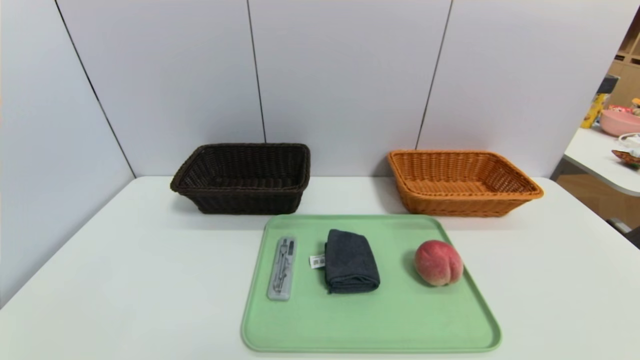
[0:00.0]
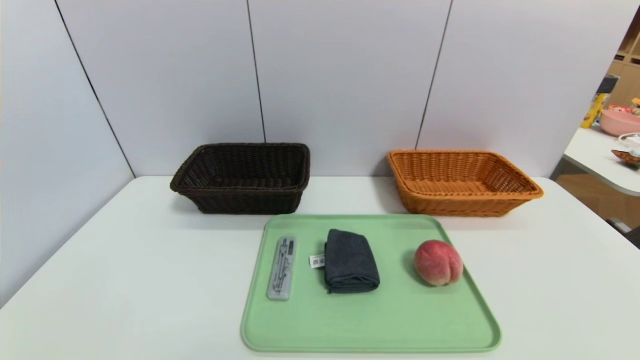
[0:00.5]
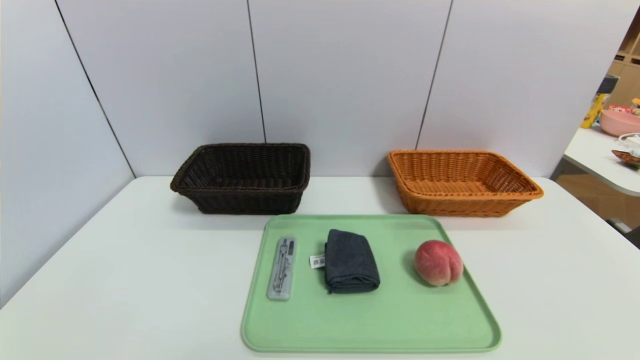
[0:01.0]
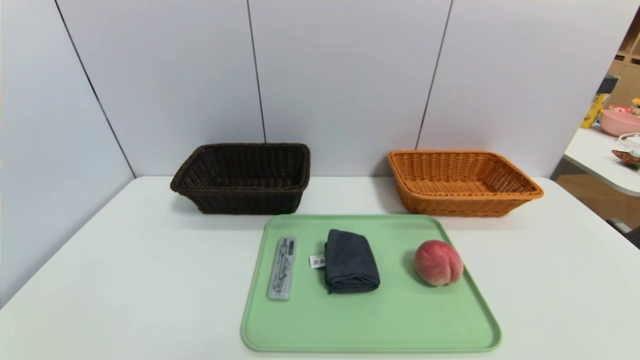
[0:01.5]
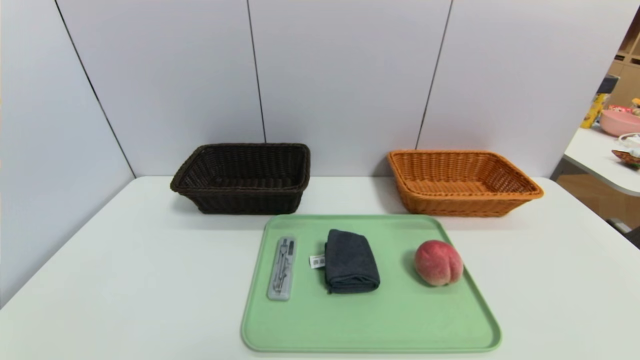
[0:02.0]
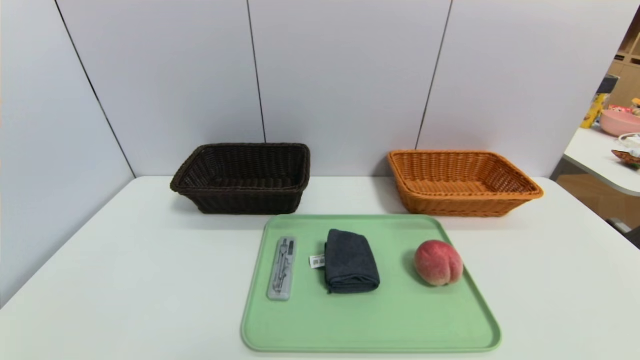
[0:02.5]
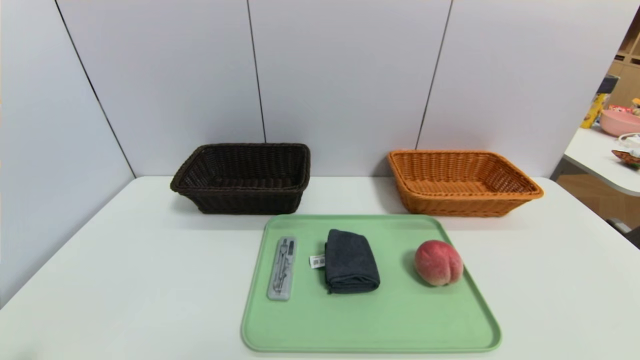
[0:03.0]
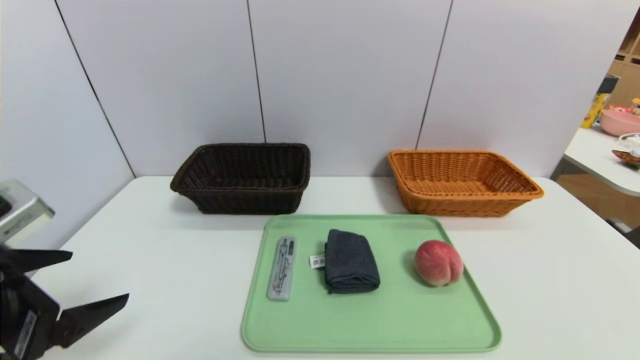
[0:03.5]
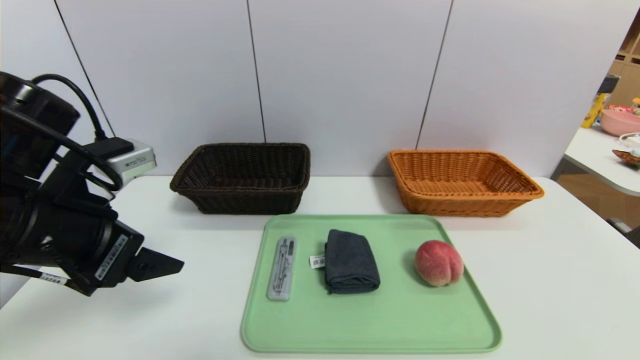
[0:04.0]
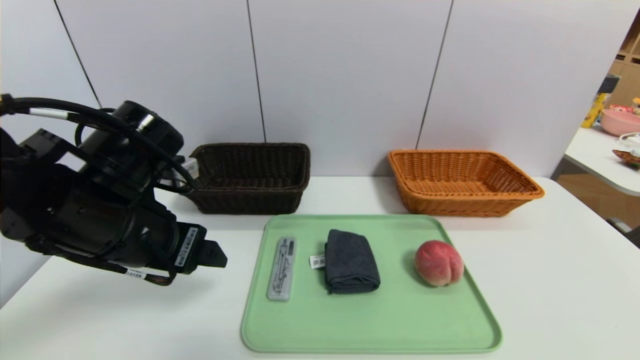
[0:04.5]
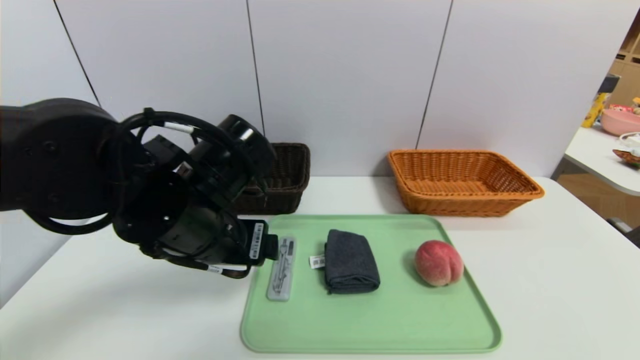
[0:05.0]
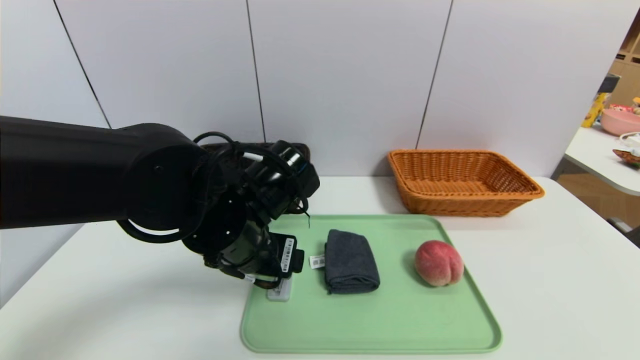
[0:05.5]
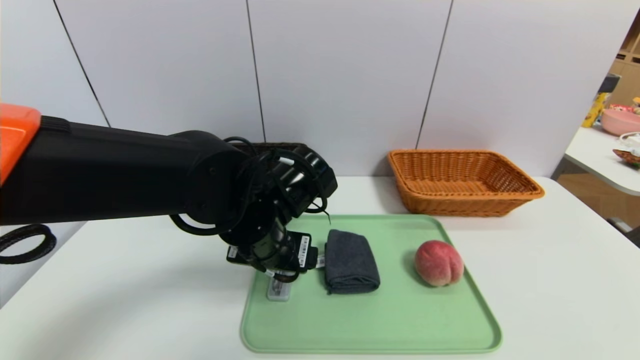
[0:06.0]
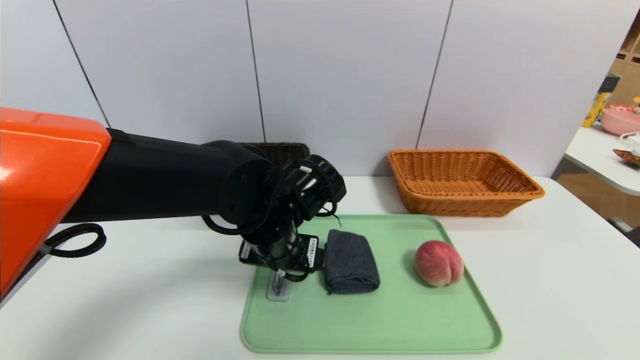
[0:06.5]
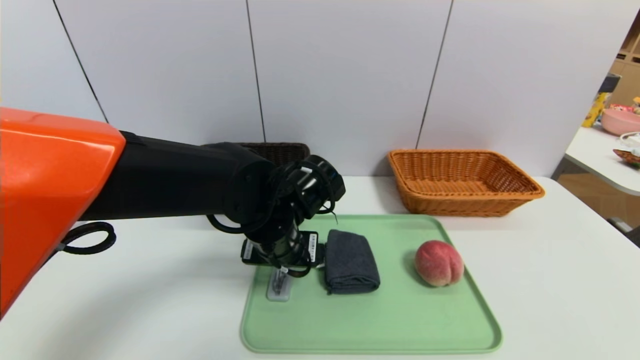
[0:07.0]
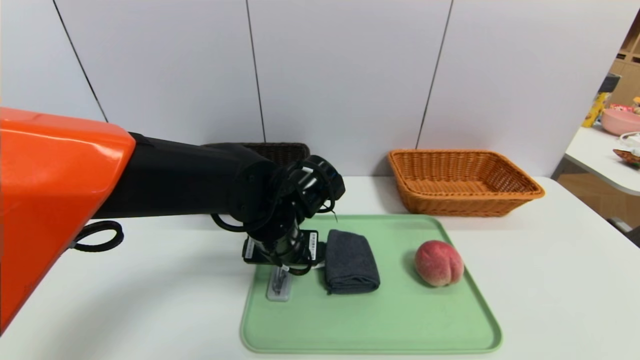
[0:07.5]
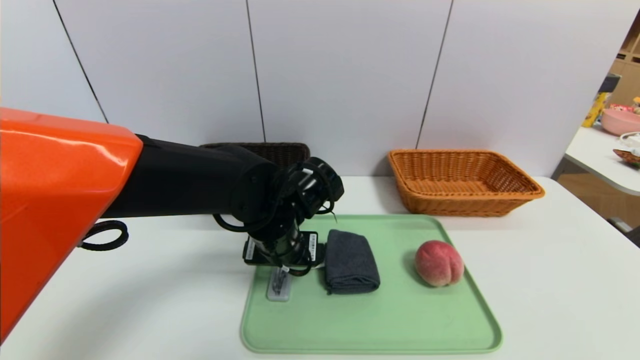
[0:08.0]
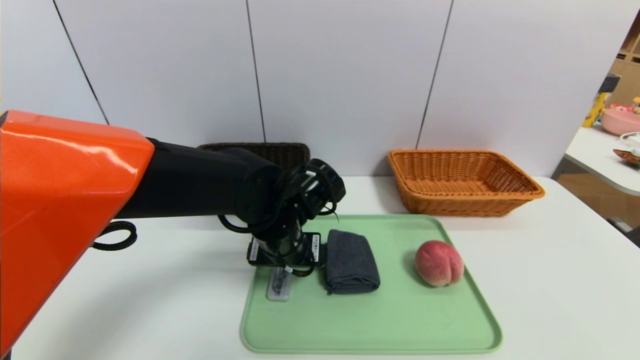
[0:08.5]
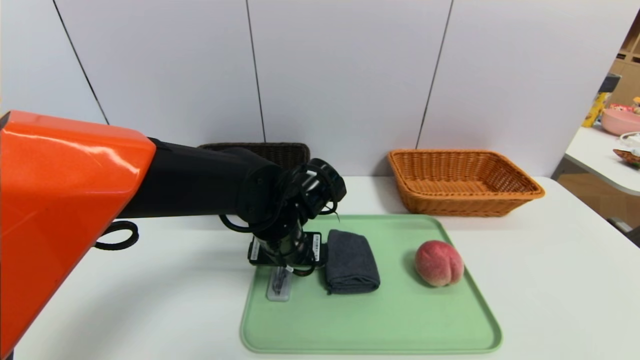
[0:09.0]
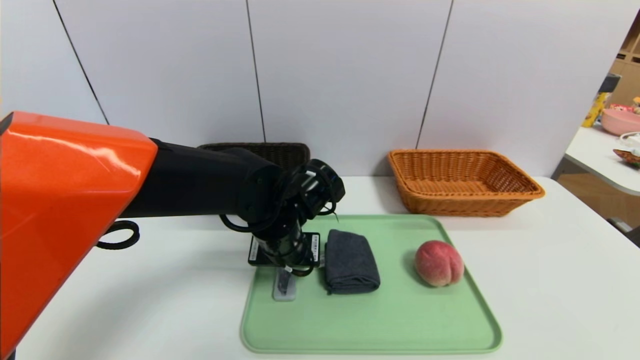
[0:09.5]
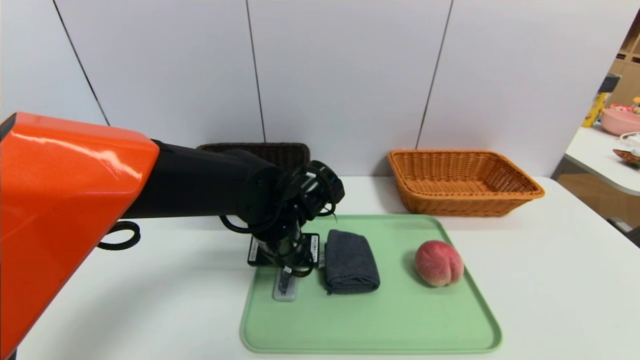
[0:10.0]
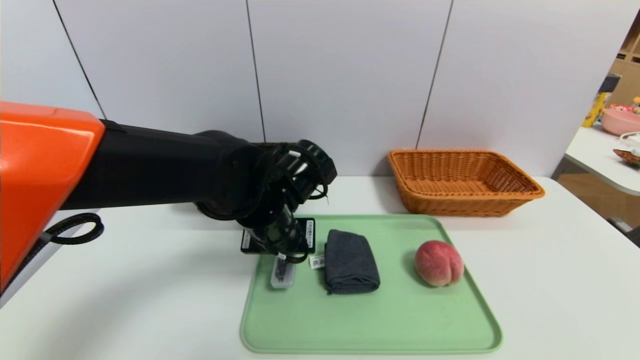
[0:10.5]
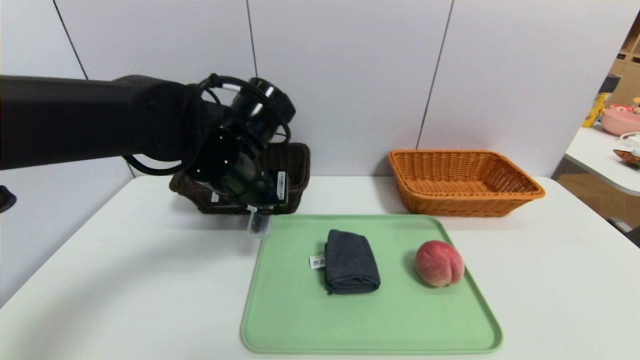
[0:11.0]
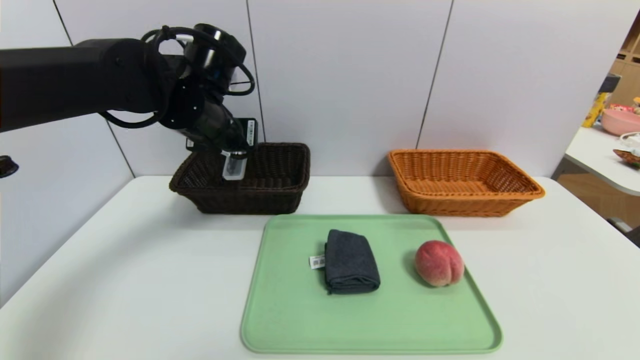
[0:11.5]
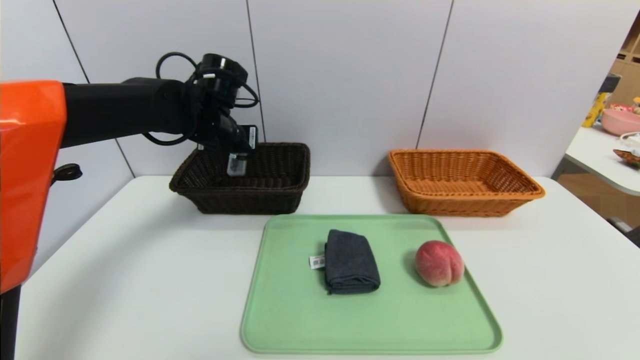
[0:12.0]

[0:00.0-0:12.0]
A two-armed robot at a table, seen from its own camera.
Task of the whole recording: place the food in the right basket with the right gripper, and place the non food items in the left basket with the left gripper.
0:00.0 to 0:02.0: Neither gripper changes place.
0:02.0 to 0:04.0: The left gripper shifts roughly 25 cm forward and upward.
0:04.0 to 0:06.0: The left gripper goes about 20 cm to the right, downward and forward.
0:06.0 to 0:08.0: There are only small adjustments of the grippers.
0:08.0 to 0:10.0: The left gripper closes up.
0:10.0 to 0:12.0: The left gripper moves forward, to the left and upward, approximately 20 cm.

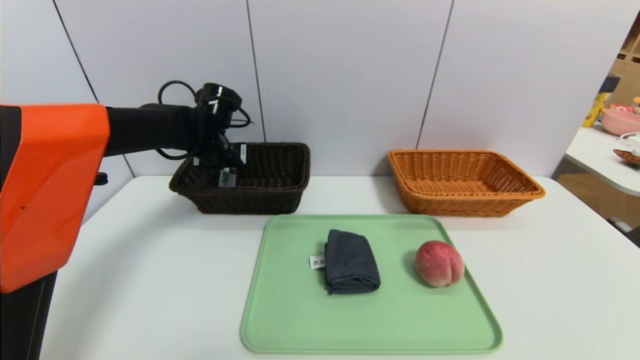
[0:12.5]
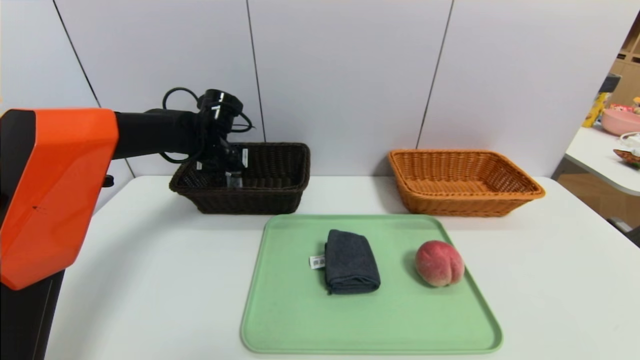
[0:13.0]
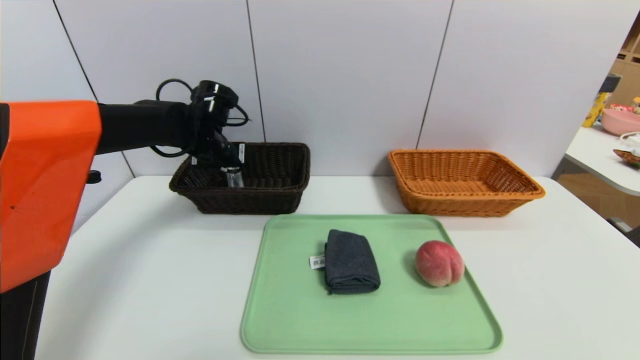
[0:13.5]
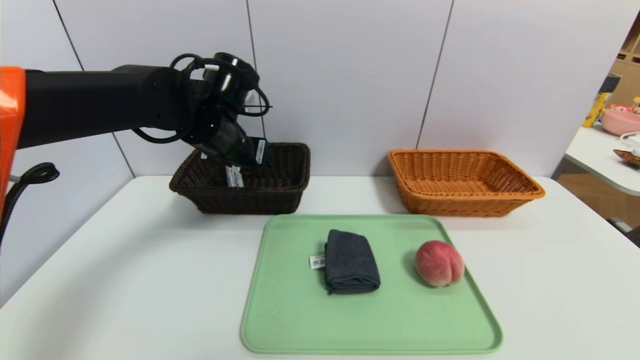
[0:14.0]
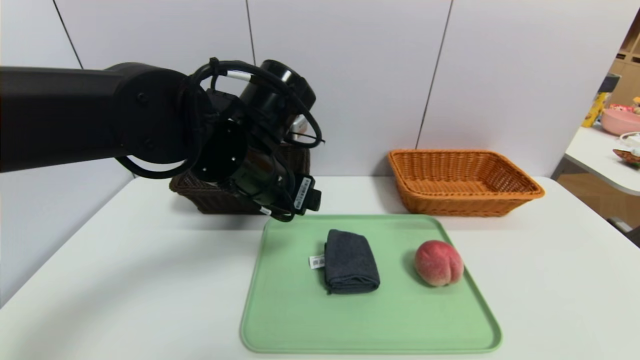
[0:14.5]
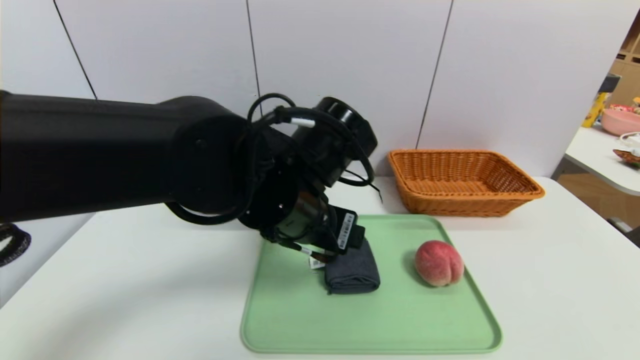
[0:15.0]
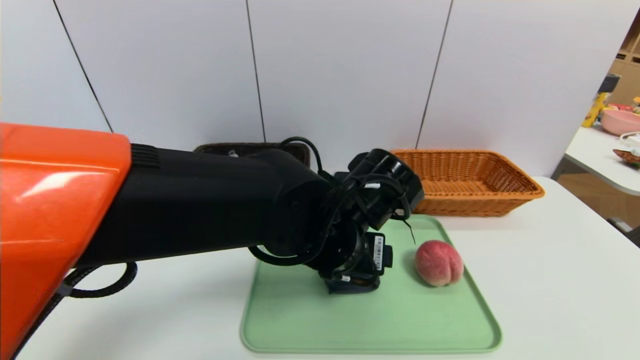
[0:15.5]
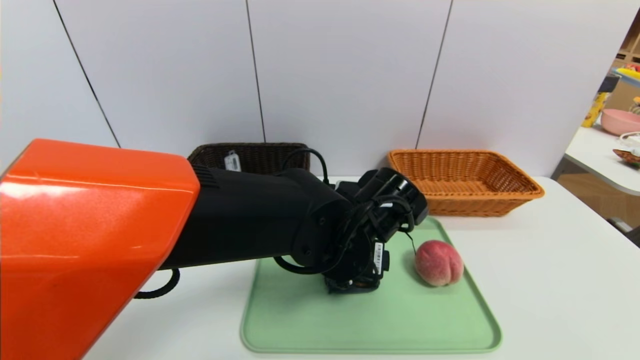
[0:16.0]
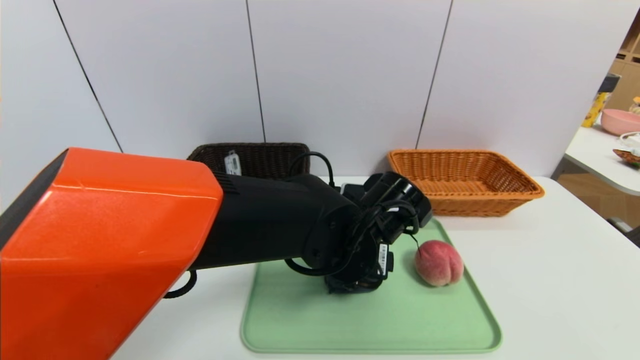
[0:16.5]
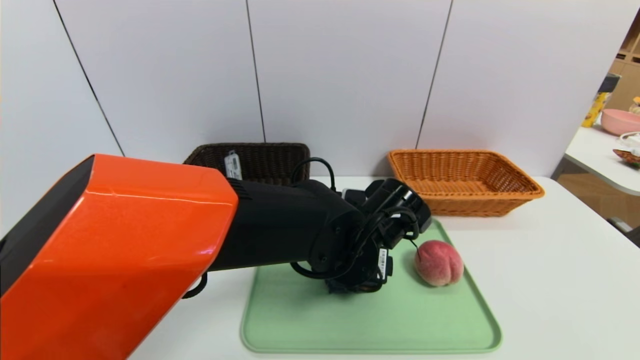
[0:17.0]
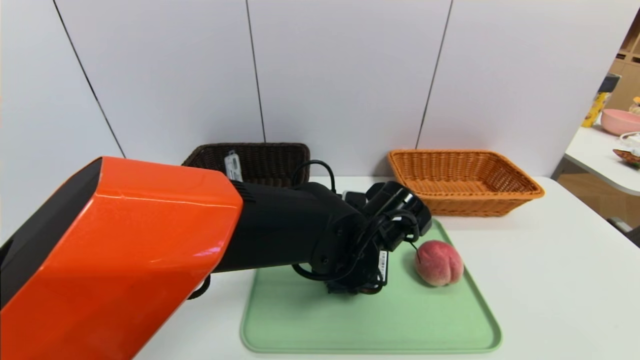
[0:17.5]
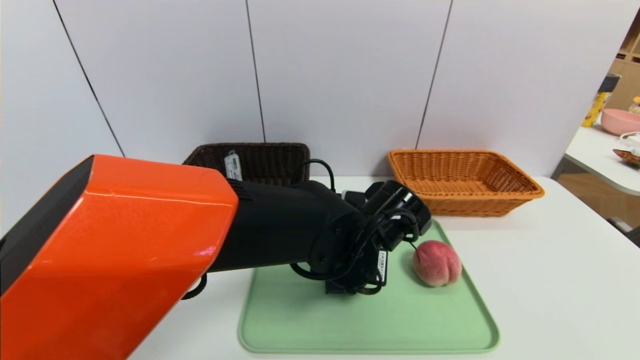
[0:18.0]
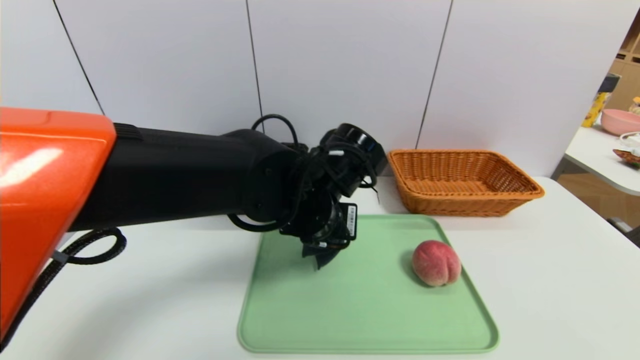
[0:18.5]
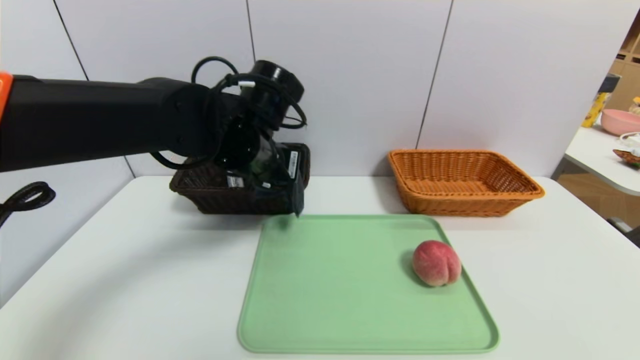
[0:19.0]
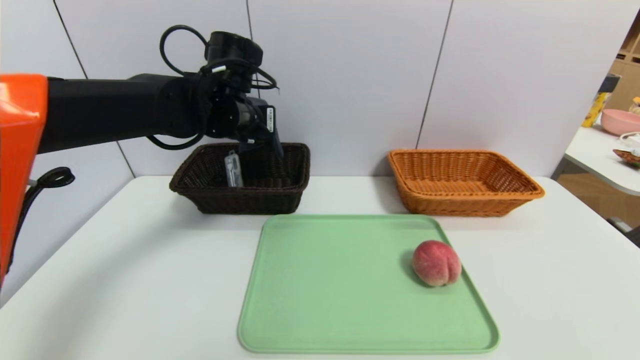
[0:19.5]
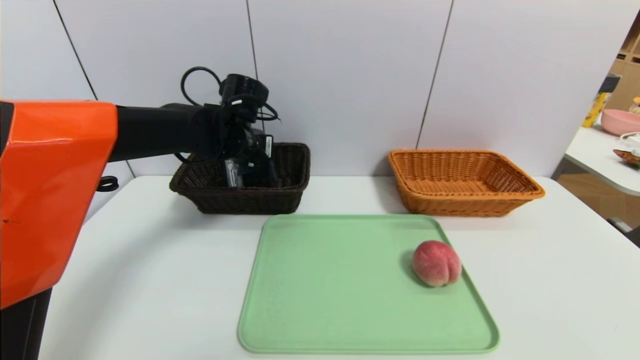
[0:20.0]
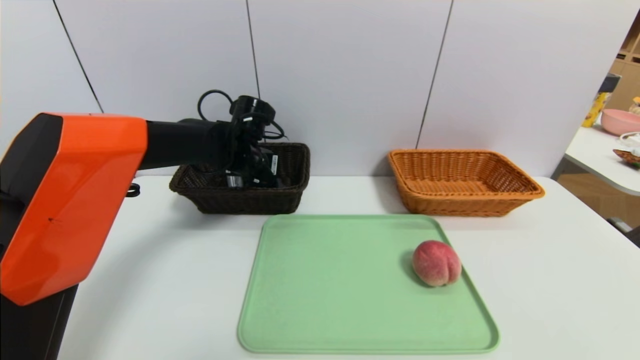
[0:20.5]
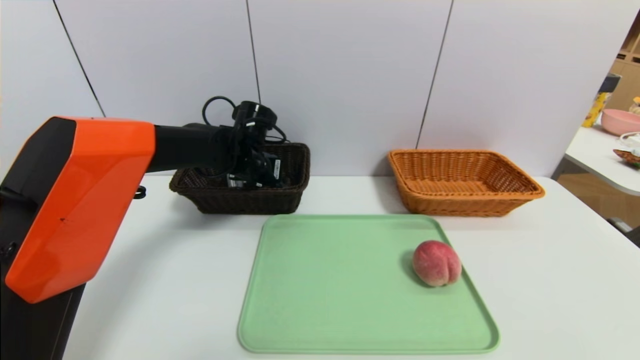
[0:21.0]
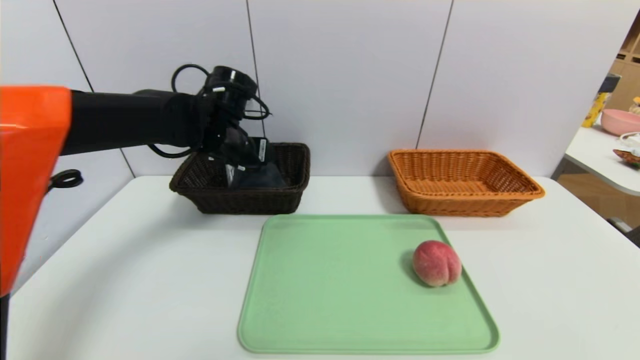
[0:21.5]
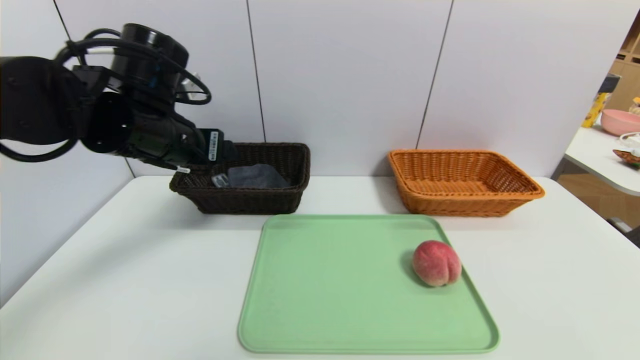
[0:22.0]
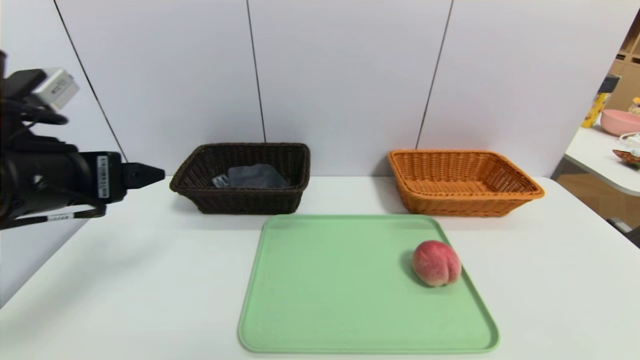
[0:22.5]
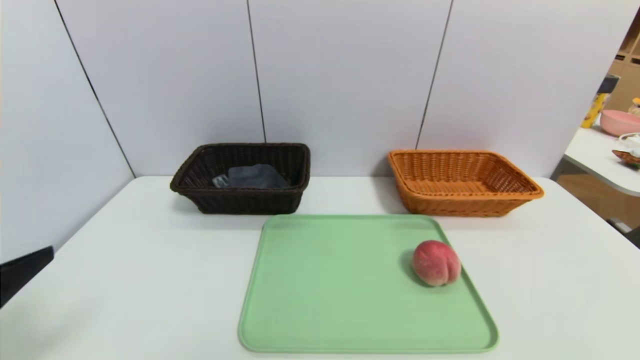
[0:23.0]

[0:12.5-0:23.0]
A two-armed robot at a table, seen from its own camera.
Task of the whole recording: place the food in the right basket with the right gripper, and place the non food items in the left basket with the left gripper.
Step, 0:14.0 to 0:21.5: Grasp the grey towel and put it in the left basket.
0:12.5 to 0:14.5: The left gripper shifts approximately 20 cm backward and to the right, and opens.
0:14.5 to 0:16.5: The left gripper travels to the right and downward by approximately 15 cm.
0:16.5 to 0:19.0: The left gripper moves to the left, upward and forward, roughly 15 cm, and closes up.
0:19.0 to 0:21.0: The left gripper is displaced forward and downward by roughly 15 cm, and opens.
0:21.0 to 0:23.0: The left gripper shifts about 40 cm backward and to the left, and opens up.
